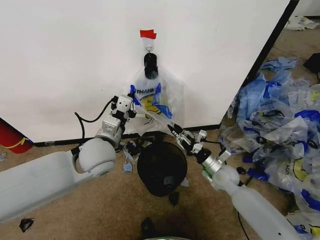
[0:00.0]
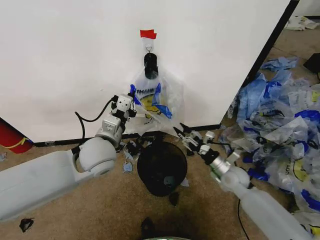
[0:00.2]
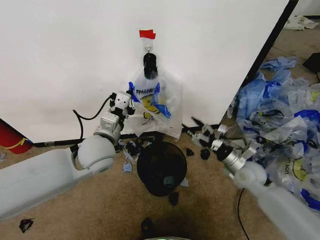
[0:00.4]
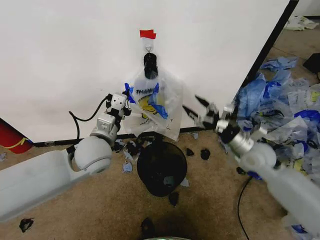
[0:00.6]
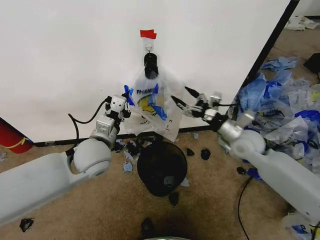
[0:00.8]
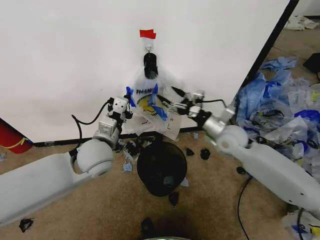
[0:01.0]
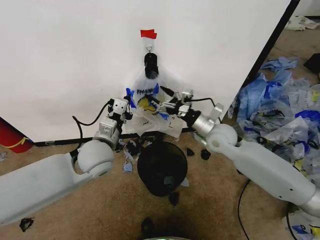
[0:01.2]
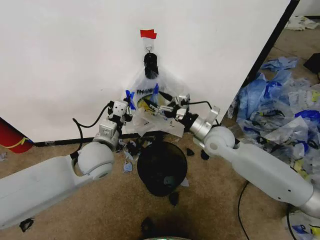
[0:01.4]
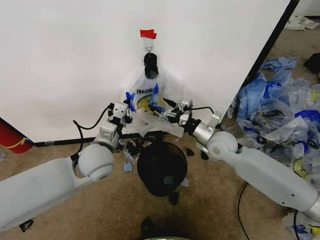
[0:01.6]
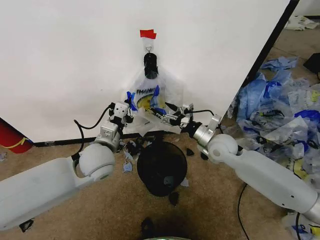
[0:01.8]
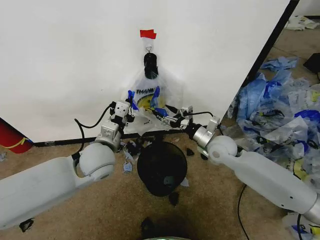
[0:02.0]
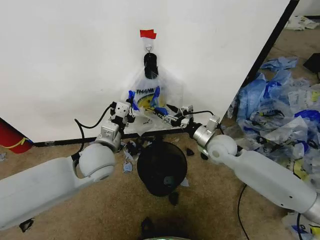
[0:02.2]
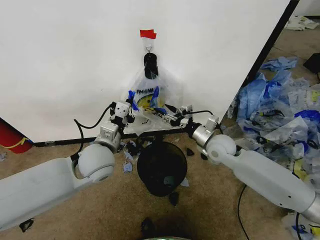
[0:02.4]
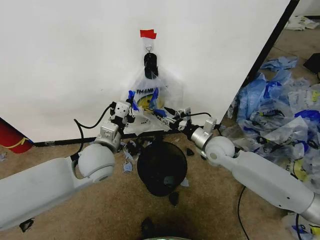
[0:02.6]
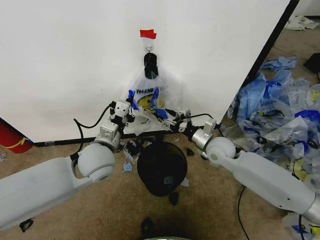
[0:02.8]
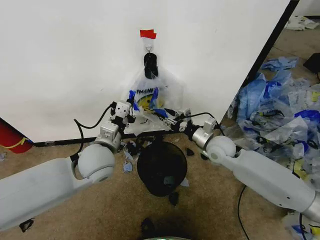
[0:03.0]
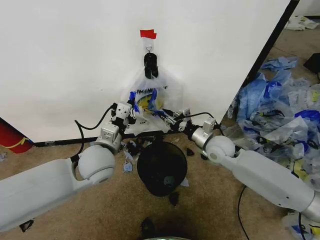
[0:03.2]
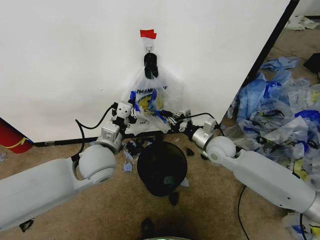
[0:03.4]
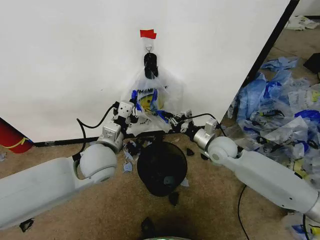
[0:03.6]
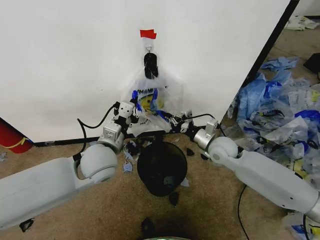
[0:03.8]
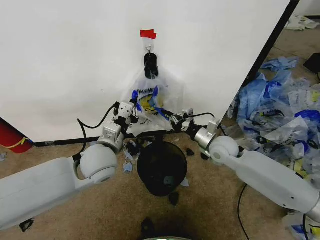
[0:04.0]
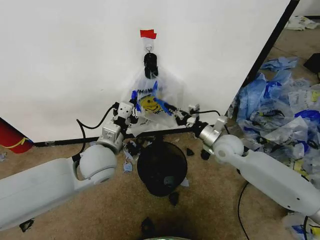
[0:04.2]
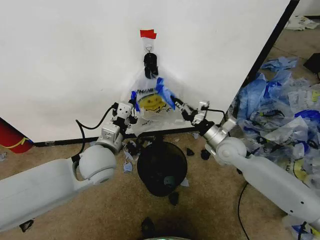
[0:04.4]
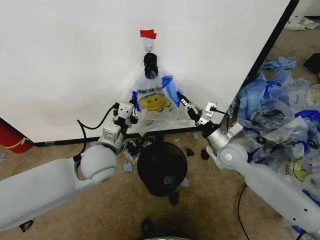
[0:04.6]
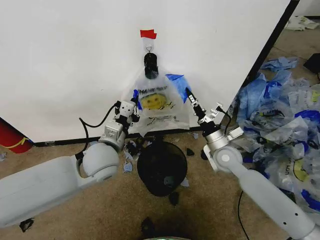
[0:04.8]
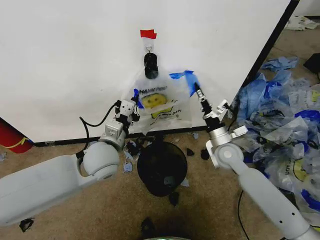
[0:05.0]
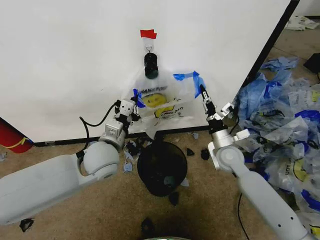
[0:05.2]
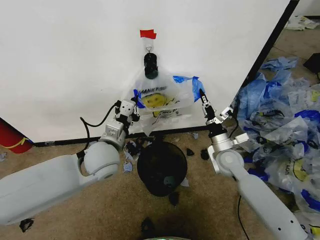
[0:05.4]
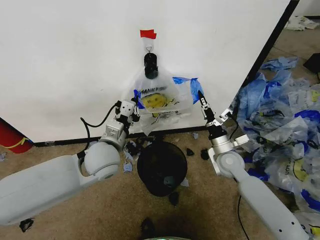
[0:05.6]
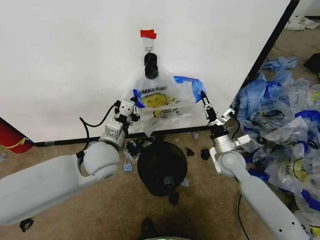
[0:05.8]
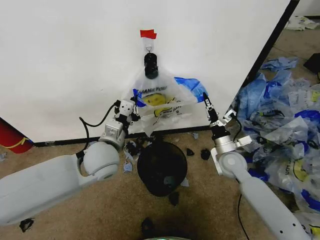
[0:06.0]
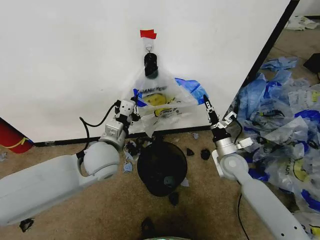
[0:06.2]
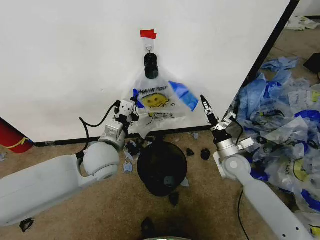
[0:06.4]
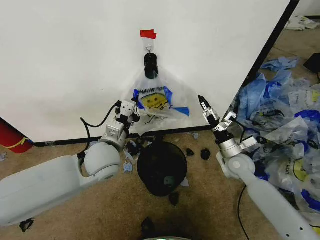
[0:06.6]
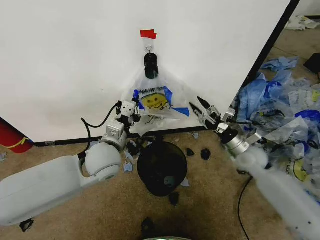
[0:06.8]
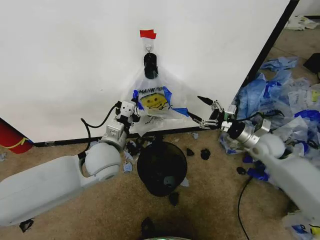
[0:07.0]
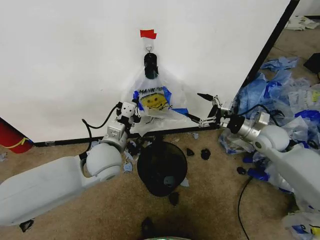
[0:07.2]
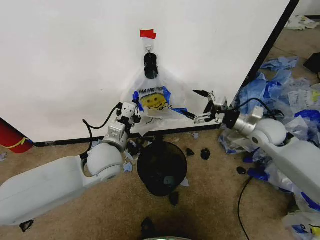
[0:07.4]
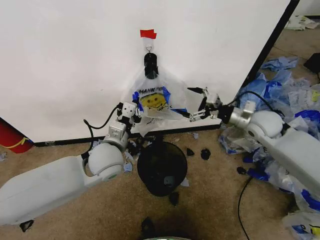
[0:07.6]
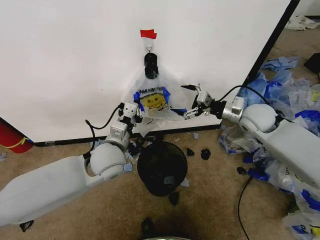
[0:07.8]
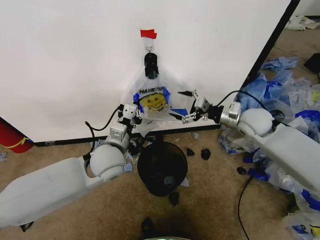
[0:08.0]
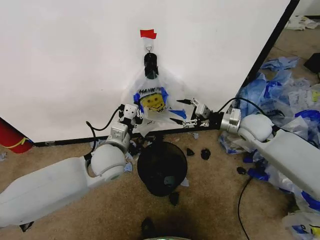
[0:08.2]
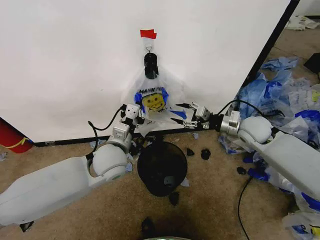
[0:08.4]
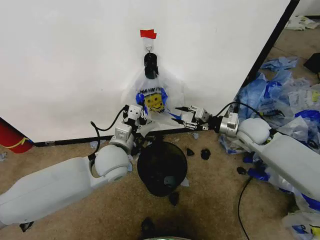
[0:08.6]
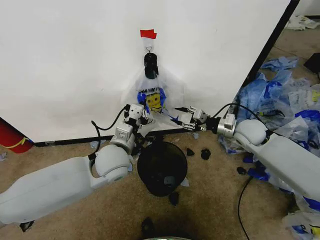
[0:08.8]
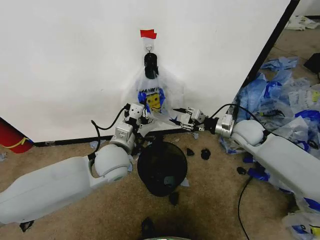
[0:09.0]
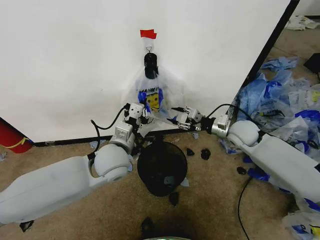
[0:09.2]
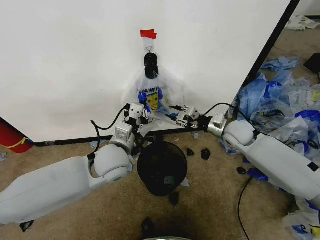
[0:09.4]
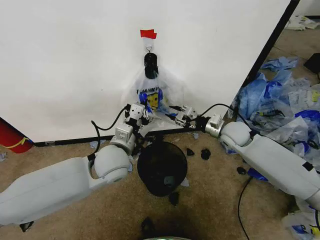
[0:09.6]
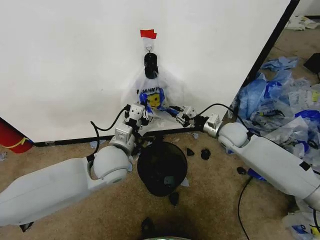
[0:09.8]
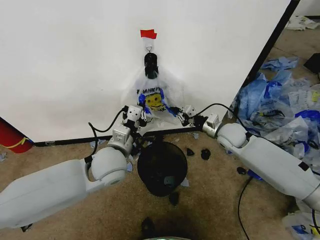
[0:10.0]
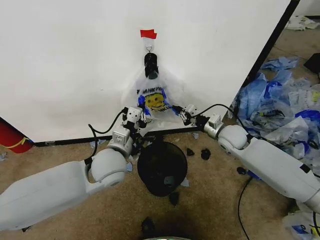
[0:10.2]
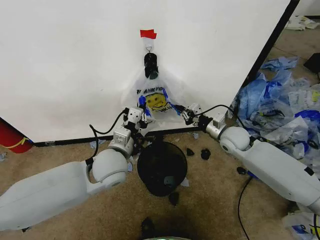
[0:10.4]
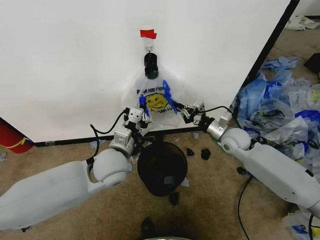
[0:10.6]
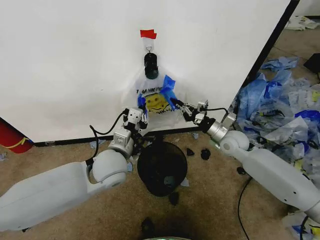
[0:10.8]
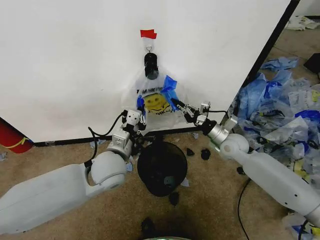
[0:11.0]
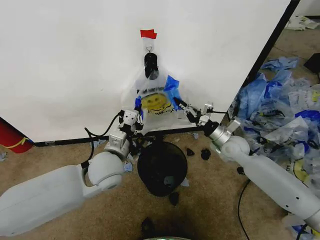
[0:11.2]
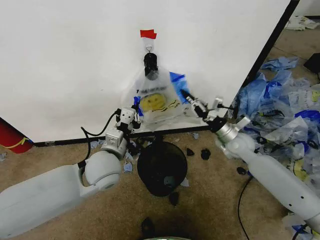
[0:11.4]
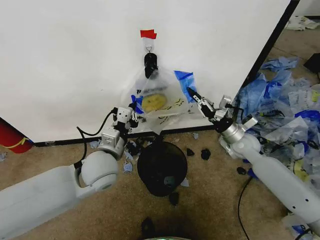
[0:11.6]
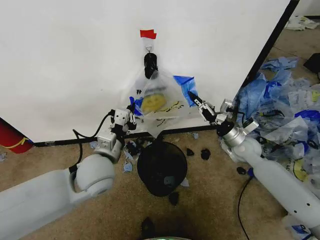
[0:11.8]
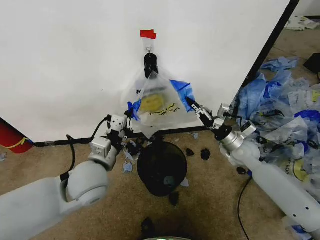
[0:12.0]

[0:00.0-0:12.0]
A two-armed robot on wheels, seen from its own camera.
Task of the whole recording: Pick up the garbage bag from the wall and place it over the trash bin.
0:00.0 to 0:01.6: The right gripper is displaced upward by roughly 15 cm, and opens.
0:01.6 to 0:03.0: The right gripper closes up.
0:03.0 to 0:04.4: The right gripper closes up.
0:04.4 to 0:06.0: The right gripper moves downward, some 5 cm.
0:06.0 to 0:07.6: The right gripper travels upward, to the right and forward by approximately 15 cm, and opens up.
0:07.6 to 0:09.0: The right gripper heads downward, covering approximately 5 cm, and closes up.
0:09.0 to 0:10.4: The right gripper closes its fingers.
0:10.4 to 0:12.0: The right gripper shifts by roughly 5 cm; the left gripper shifts by about 5 cm.

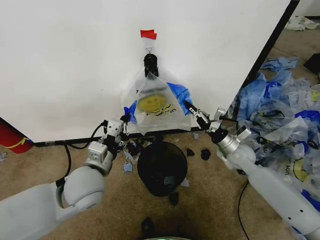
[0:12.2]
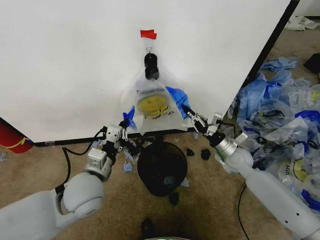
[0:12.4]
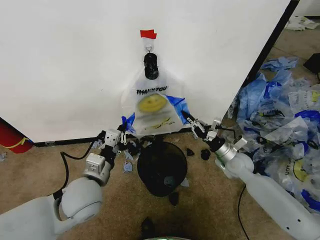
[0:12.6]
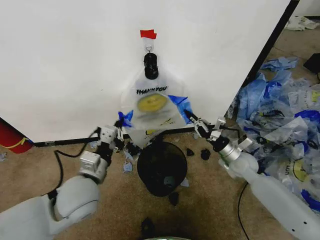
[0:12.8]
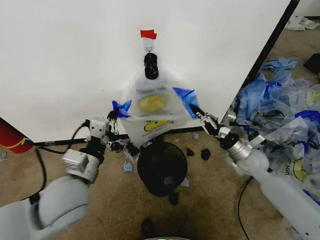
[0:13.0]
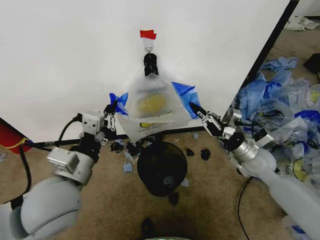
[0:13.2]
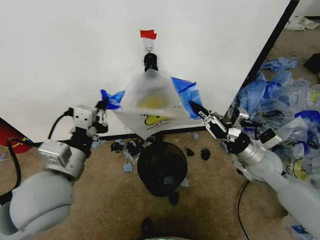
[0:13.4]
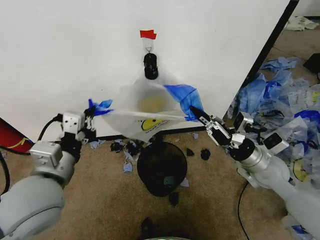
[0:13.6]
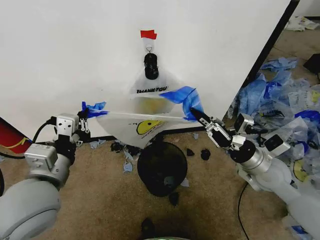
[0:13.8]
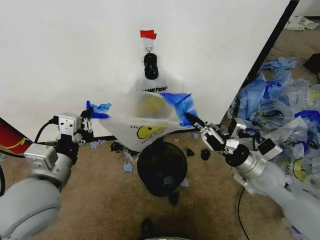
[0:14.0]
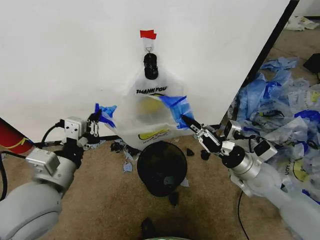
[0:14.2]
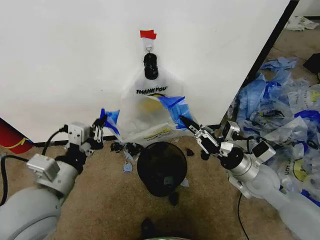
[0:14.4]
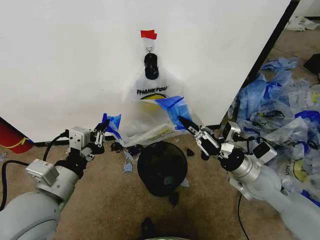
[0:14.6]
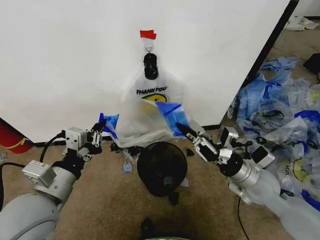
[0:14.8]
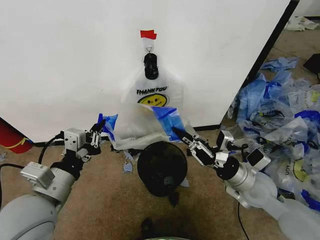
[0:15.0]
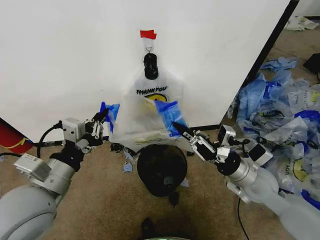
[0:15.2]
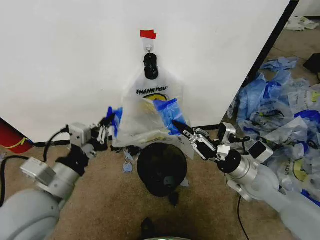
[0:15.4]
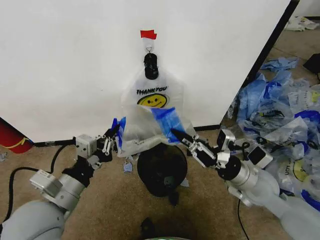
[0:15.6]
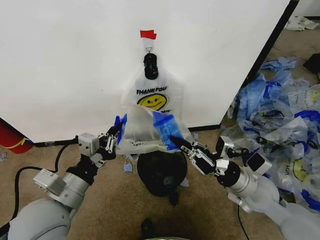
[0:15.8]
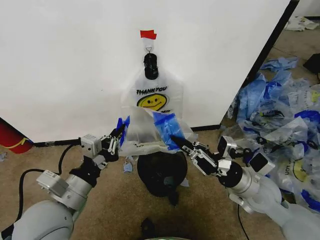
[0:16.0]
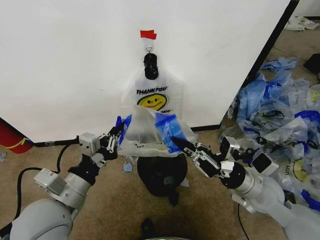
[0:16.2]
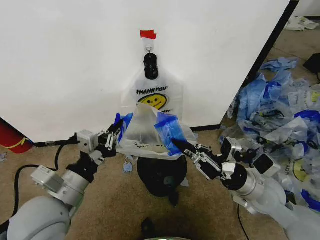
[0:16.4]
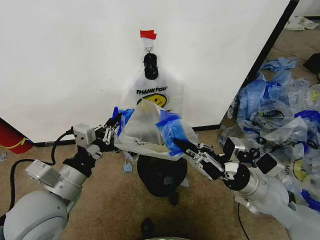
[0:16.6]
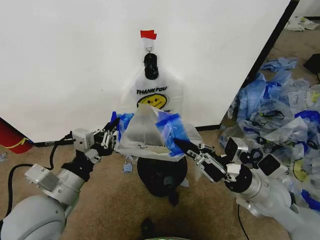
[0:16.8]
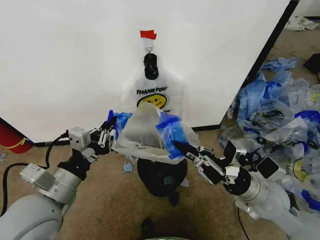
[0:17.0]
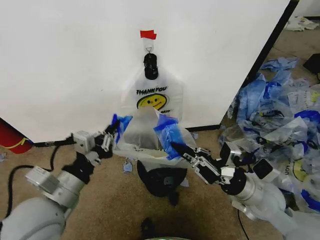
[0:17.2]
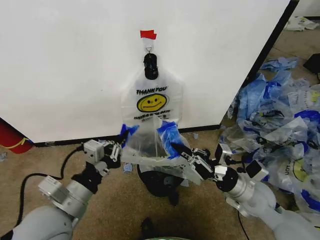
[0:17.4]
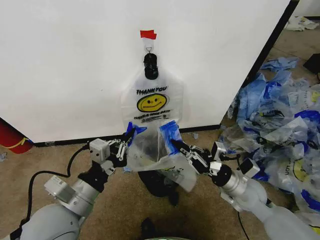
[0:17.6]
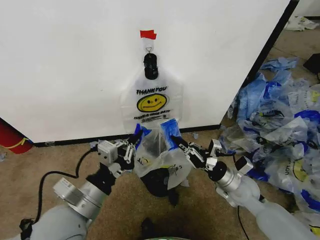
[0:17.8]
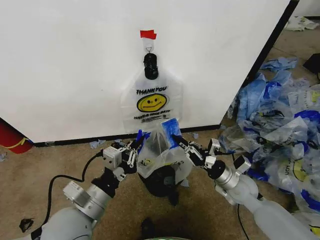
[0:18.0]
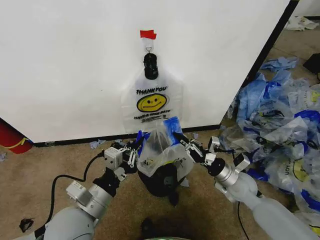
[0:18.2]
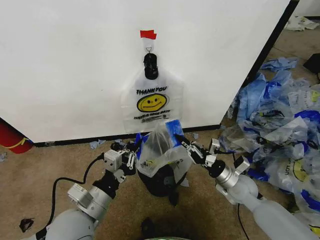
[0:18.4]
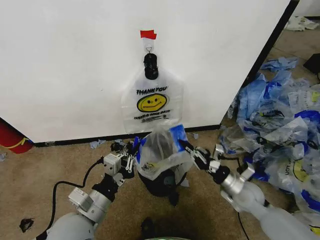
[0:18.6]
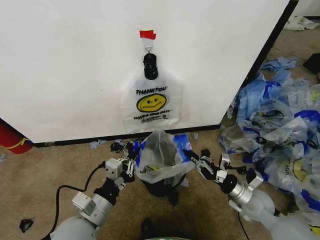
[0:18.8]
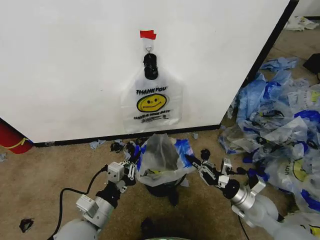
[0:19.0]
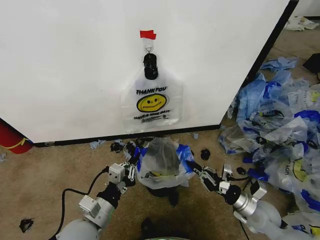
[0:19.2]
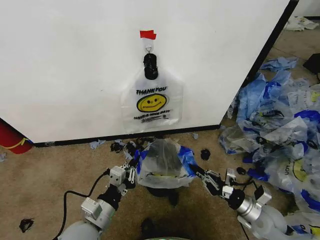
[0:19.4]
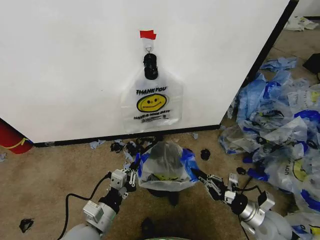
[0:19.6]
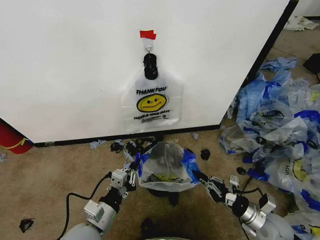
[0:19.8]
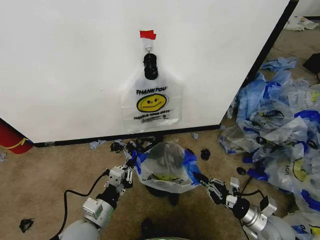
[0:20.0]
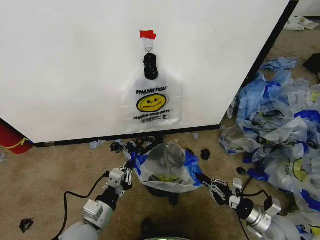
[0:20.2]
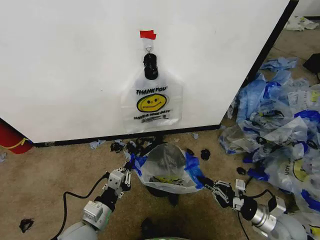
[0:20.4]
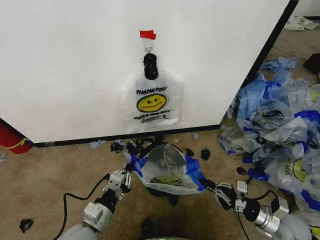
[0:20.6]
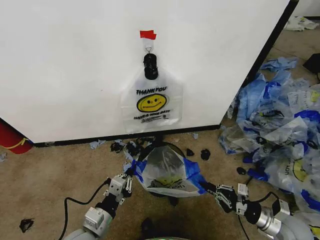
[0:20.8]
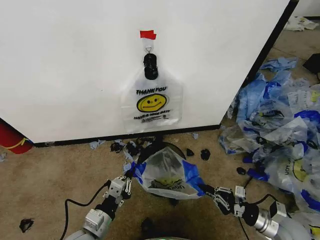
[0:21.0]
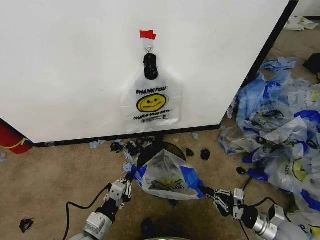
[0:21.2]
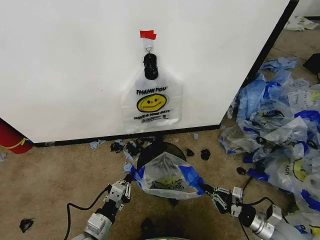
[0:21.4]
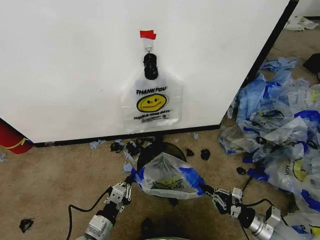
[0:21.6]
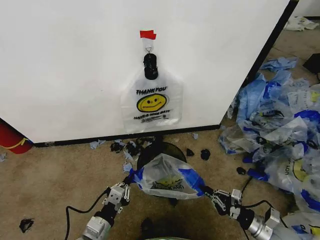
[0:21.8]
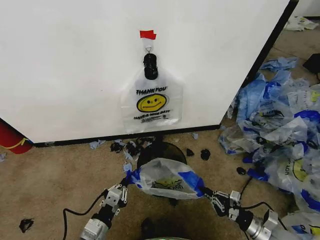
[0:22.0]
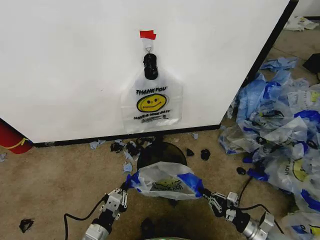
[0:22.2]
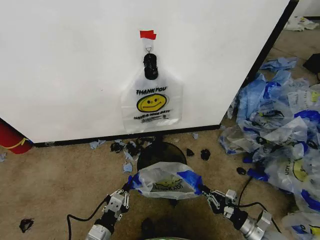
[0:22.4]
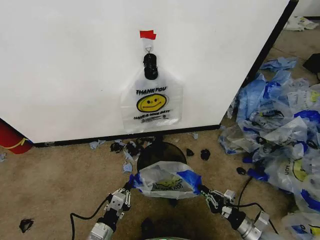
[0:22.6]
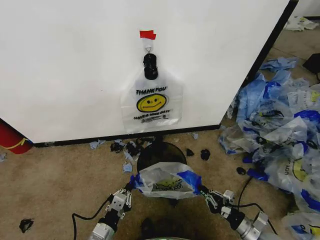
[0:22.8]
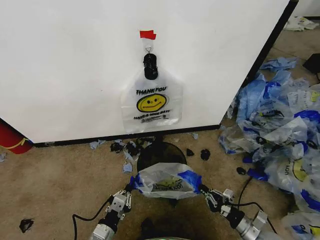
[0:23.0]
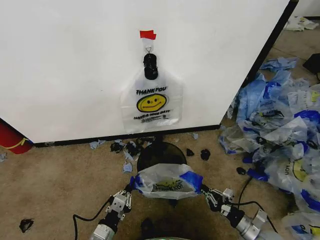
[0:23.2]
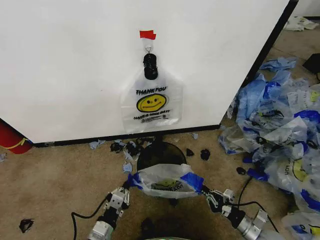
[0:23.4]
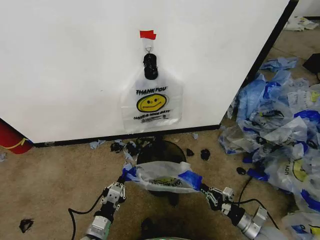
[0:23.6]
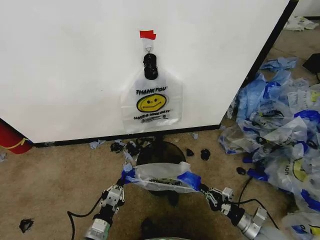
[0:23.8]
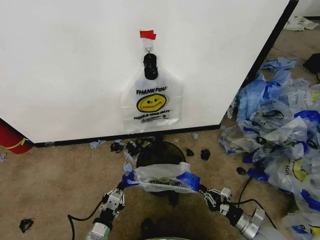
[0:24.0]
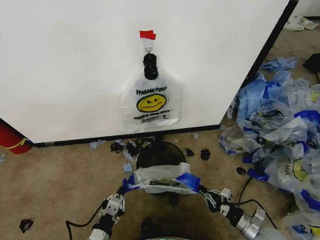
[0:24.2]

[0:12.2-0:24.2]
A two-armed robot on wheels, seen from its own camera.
Task of the whole recording: Pick up the garbage bag from the wall and place it over the trash bin.
0:12.2 to 0:13.8: The right gripper goes some 15 cm backward and upward, while the left gripper shifts some 10 cm upward, backward and to the left.
0:15.2 to 0:16.6: The grippers move only a little.
0:16.6 to 0:18.2: The right gripper moves downward and forward, roughly 10 cm. The left gripper travels downward by some 5 cm.
0:18.2 to 0:19.8: The right gripper heads backward, to the right and downward, covering approximately 15 cm, while the left gripper shifts about 10 cm downward.
0:19.8 to 0:21.2: The grippers make only small movements.
0:21.2 to 0:22.6: The left gripper shifts by some 5 cm. Meanwhile the right gripper shifts by about 5 cm.
0:22.6 to 0:24.2: The grippers make only small movements.
